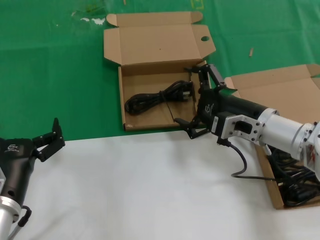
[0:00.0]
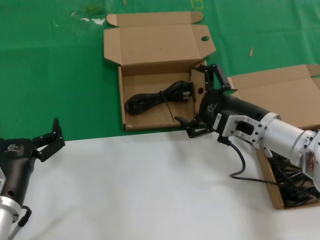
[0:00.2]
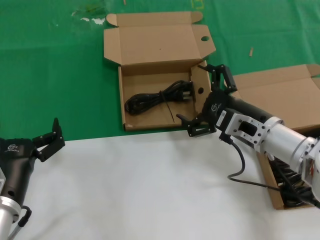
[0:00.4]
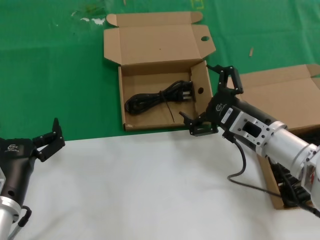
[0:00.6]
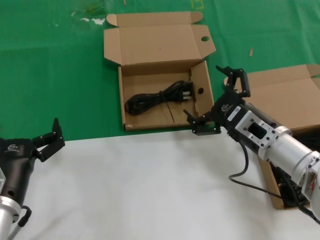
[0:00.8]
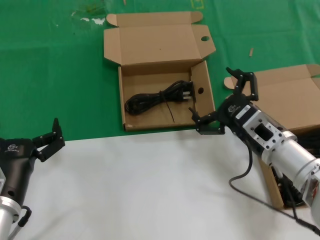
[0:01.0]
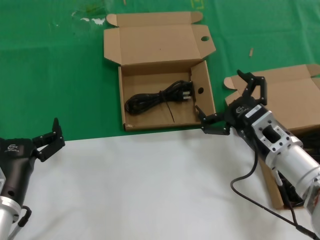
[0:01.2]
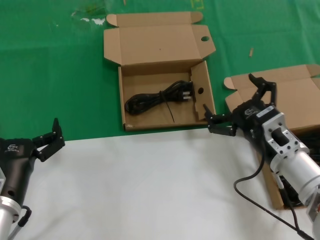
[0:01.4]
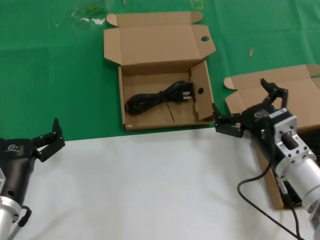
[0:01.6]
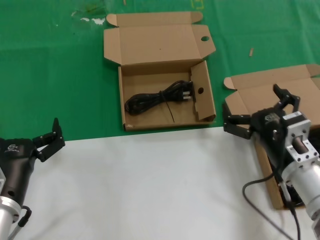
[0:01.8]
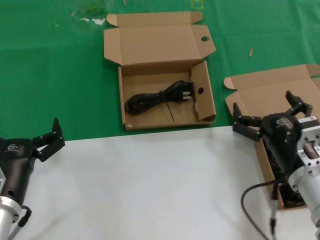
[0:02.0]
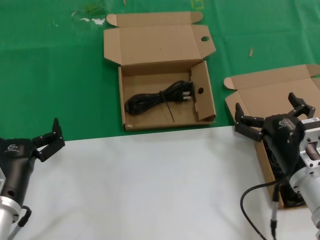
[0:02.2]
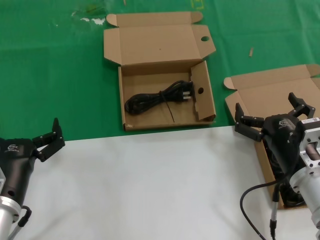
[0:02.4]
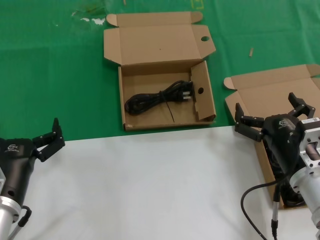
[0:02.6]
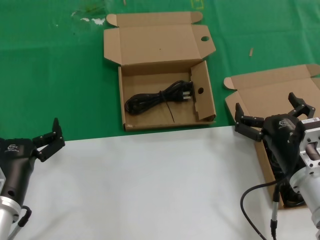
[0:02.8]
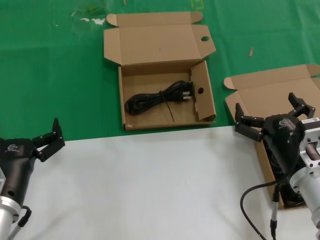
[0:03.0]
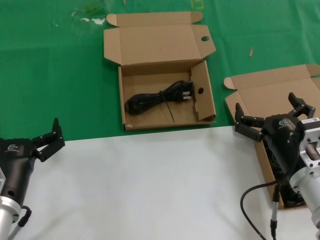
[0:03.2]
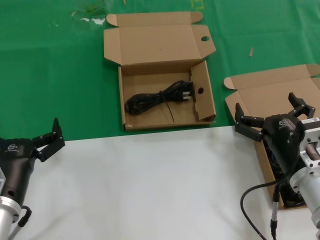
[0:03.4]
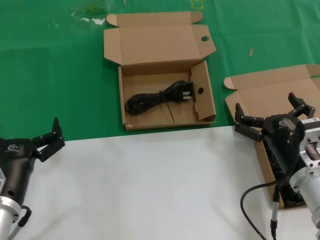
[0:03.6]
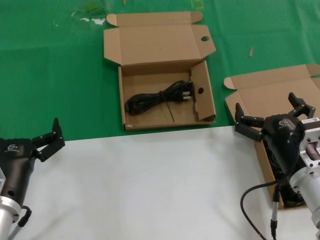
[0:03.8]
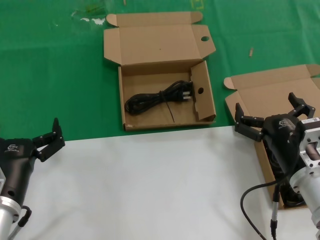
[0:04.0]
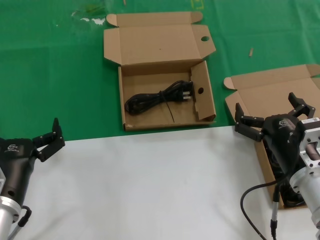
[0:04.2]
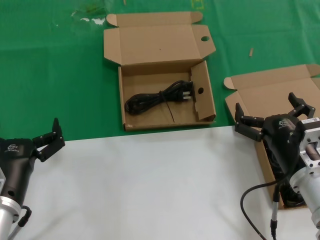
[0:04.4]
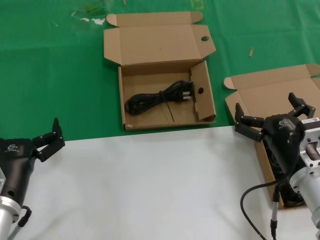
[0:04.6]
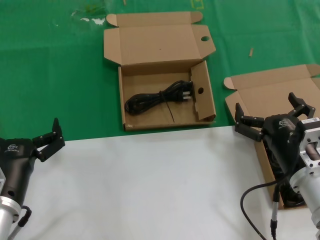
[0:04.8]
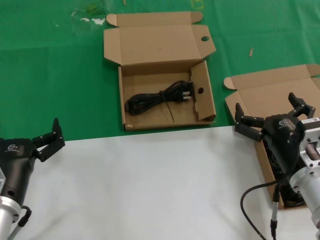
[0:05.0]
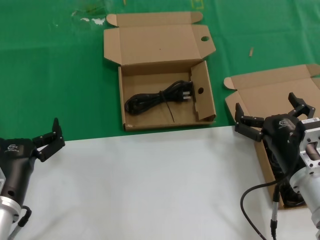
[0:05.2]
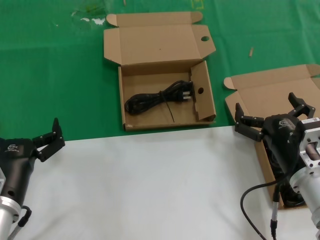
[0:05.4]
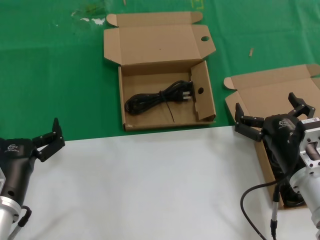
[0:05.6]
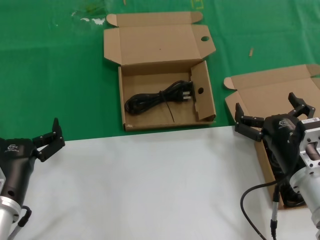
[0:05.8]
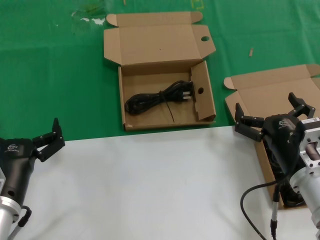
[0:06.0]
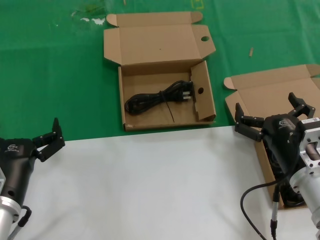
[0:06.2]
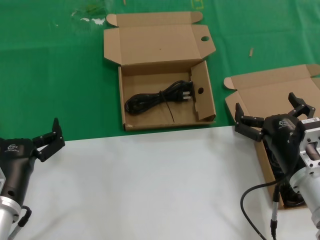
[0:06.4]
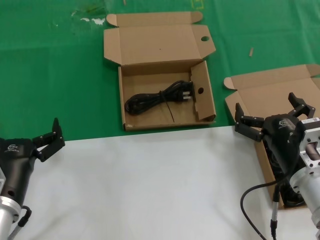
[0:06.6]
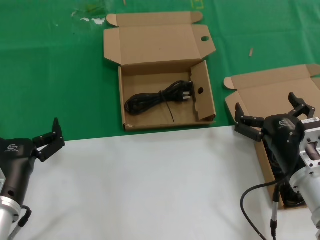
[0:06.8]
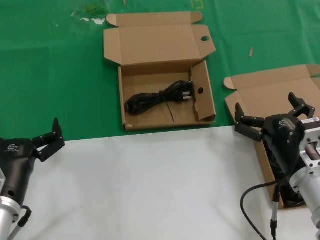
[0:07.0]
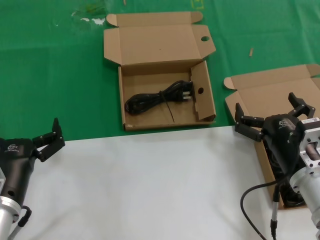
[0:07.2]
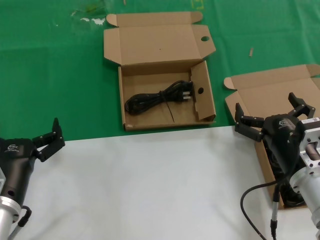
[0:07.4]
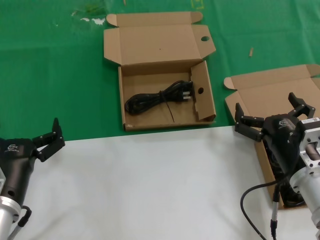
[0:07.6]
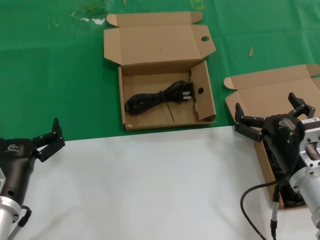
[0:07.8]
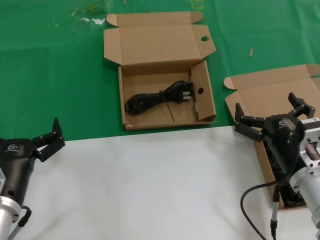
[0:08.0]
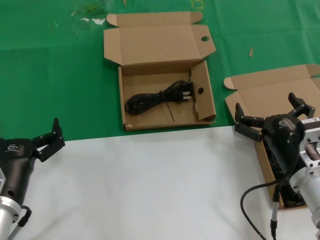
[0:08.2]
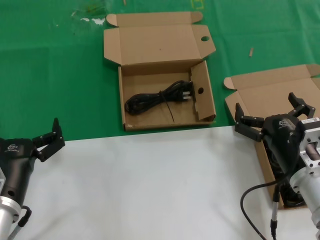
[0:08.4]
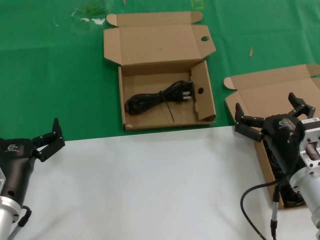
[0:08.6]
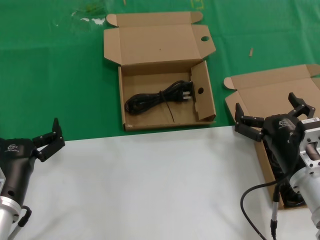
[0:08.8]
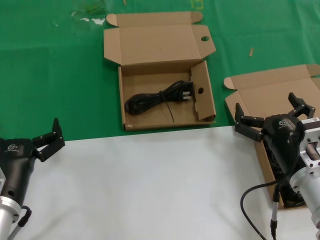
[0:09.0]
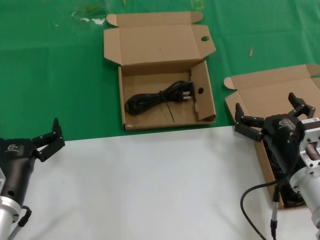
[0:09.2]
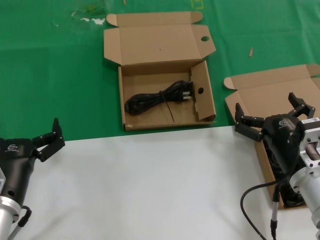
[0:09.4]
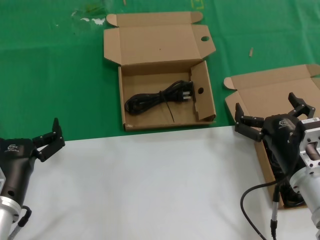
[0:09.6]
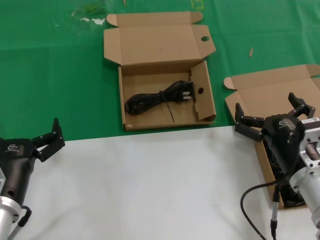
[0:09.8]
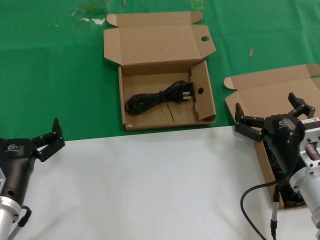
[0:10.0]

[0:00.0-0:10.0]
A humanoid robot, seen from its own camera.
Task of the whole recording: take the parts from the box containing them and put them into an empty box.
0:00.0 to 0:01.4: The right hand heads backward, covering roughly 5 cm.
0:02.8 to 0:10.0: Both hands stay put.

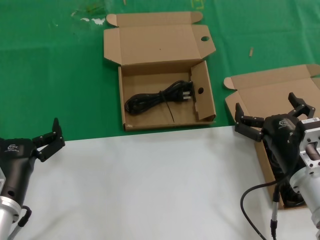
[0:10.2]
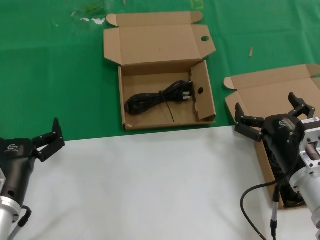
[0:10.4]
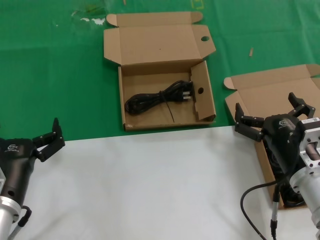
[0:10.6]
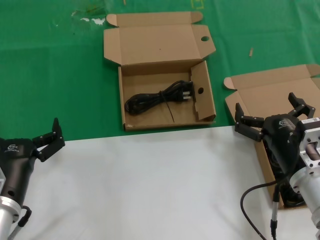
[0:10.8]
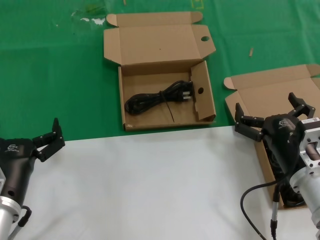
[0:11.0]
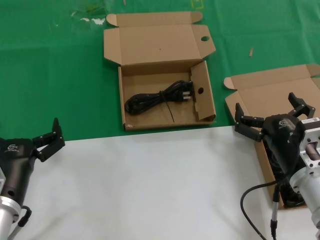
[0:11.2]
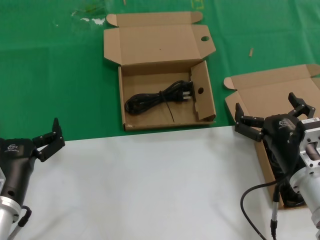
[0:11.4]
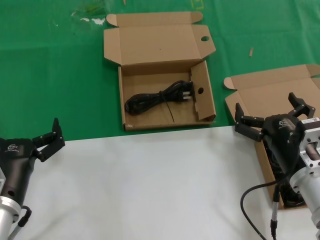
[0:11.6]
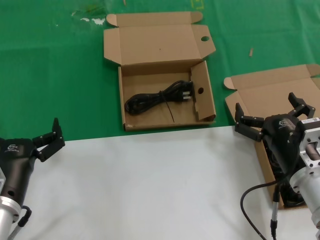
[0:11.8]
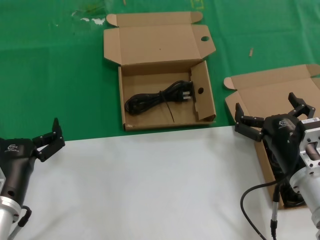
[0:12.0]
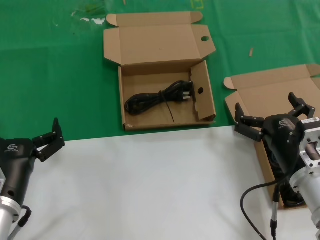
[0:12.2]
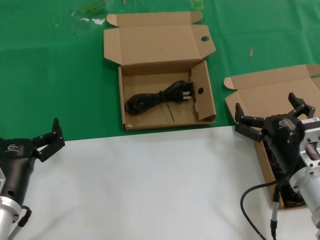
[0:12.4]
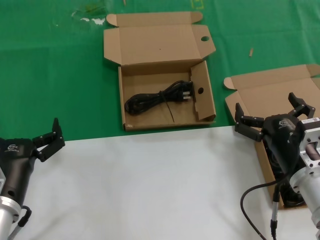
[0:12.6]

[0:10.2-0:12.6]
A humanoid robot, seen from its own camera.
Task of the whole recording: take the parts from the box containing them and put them into an empty box.
0:10.2 to 0:12.6: Neither hand changes place.
